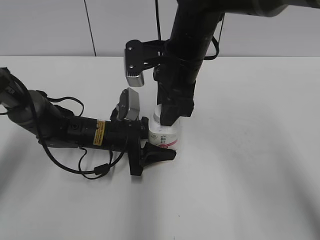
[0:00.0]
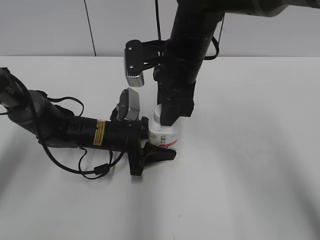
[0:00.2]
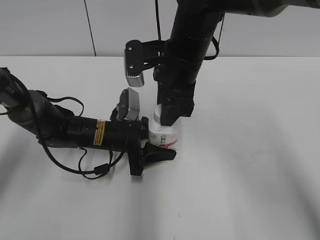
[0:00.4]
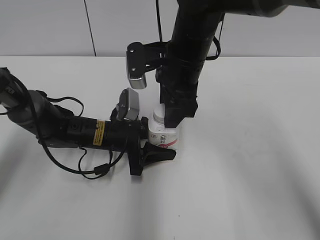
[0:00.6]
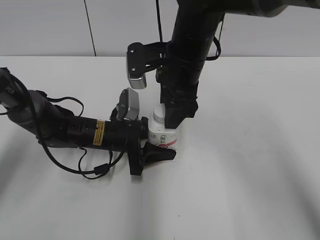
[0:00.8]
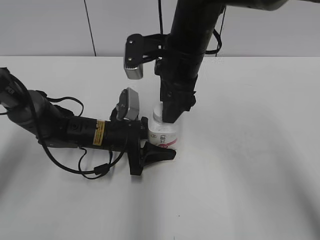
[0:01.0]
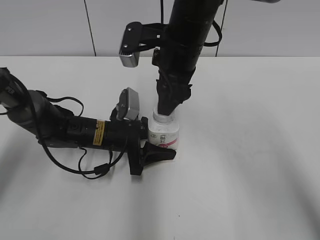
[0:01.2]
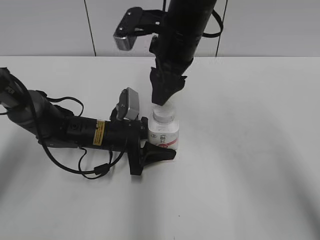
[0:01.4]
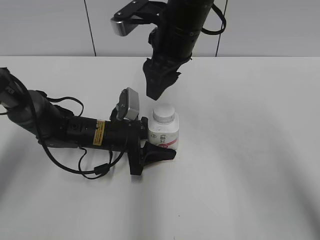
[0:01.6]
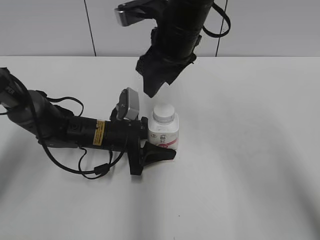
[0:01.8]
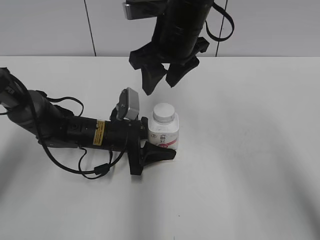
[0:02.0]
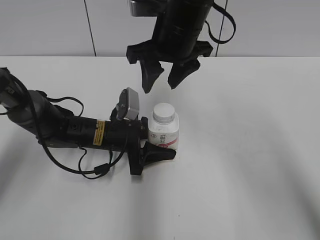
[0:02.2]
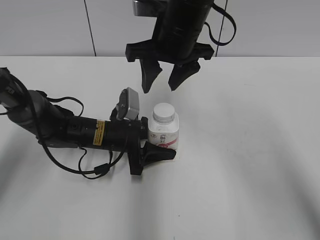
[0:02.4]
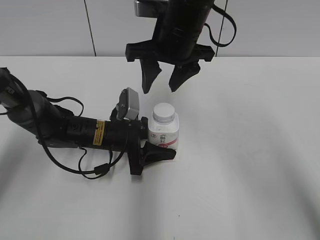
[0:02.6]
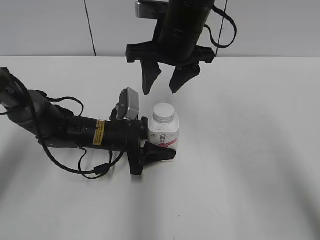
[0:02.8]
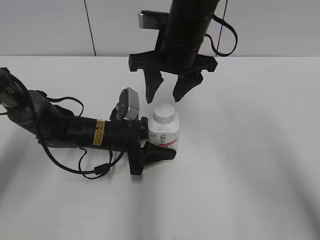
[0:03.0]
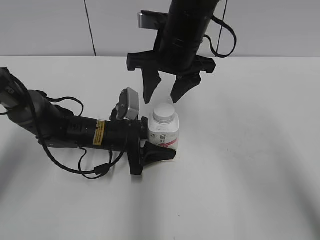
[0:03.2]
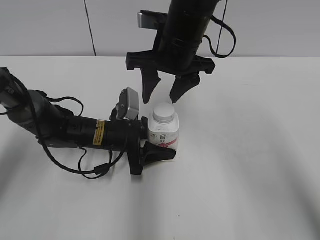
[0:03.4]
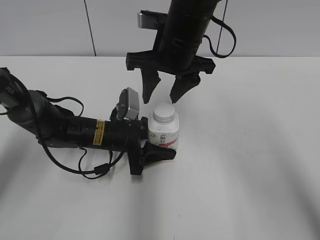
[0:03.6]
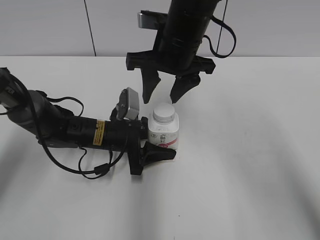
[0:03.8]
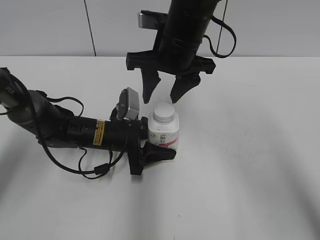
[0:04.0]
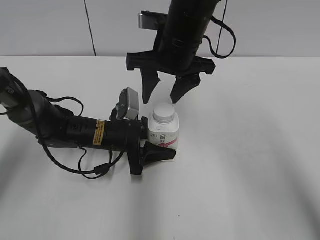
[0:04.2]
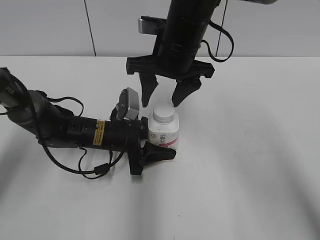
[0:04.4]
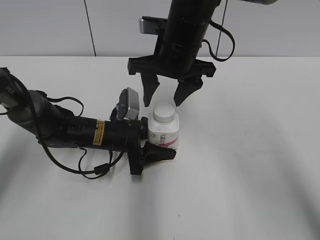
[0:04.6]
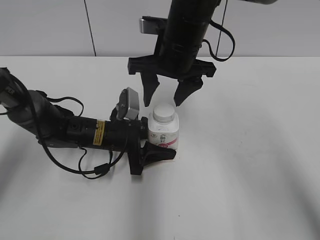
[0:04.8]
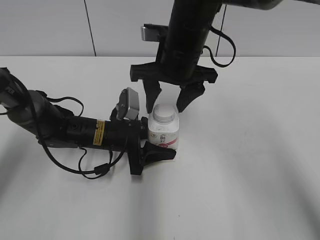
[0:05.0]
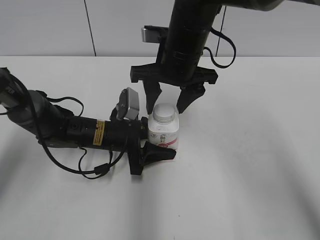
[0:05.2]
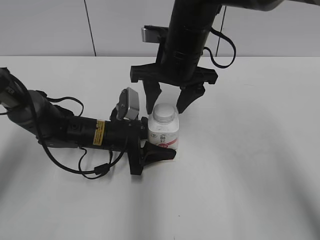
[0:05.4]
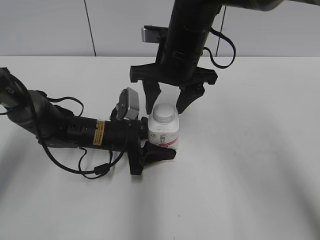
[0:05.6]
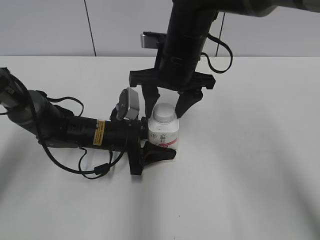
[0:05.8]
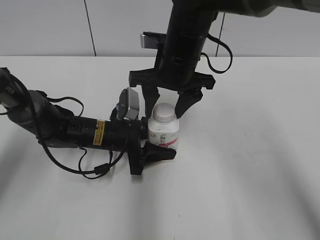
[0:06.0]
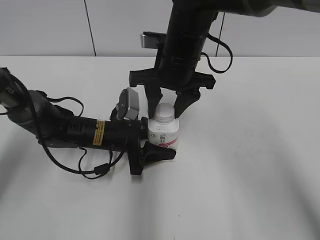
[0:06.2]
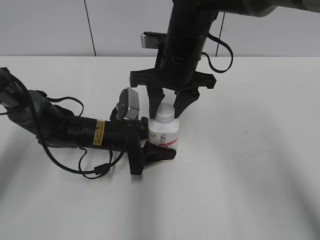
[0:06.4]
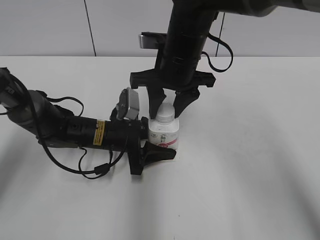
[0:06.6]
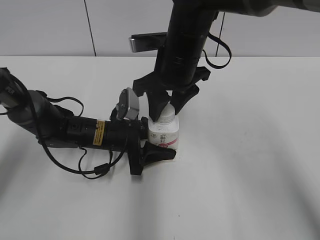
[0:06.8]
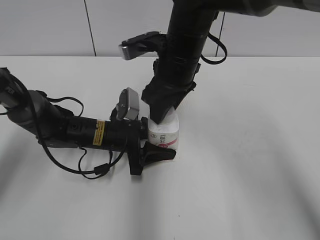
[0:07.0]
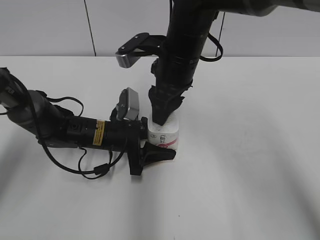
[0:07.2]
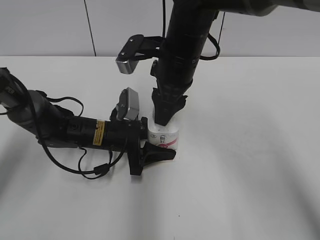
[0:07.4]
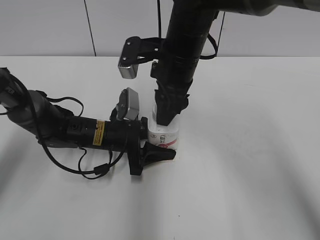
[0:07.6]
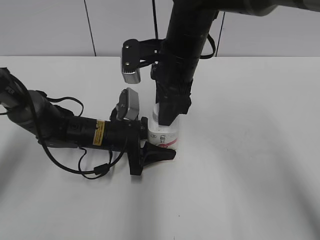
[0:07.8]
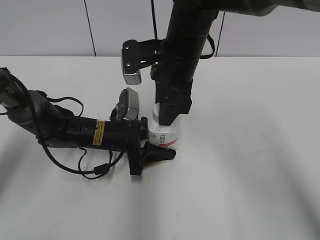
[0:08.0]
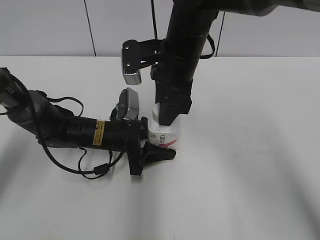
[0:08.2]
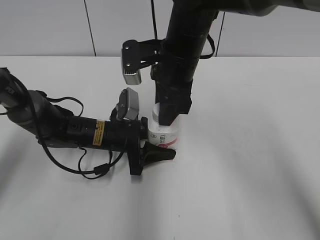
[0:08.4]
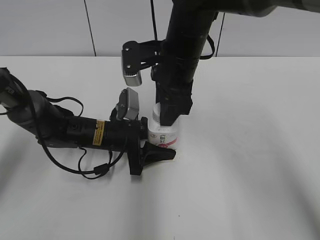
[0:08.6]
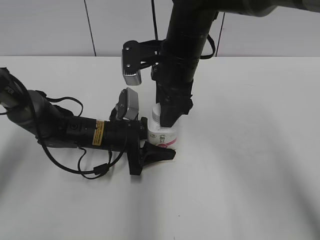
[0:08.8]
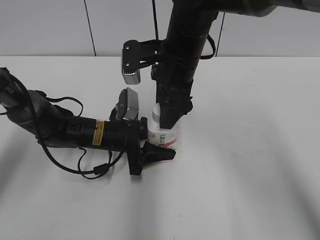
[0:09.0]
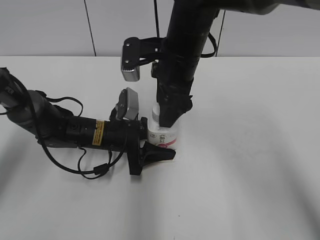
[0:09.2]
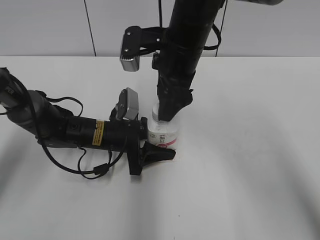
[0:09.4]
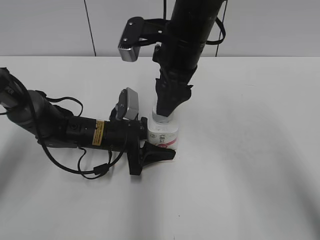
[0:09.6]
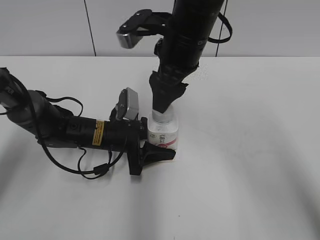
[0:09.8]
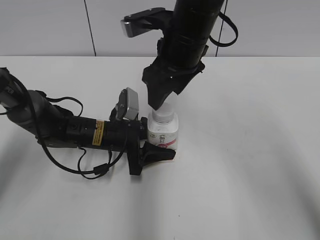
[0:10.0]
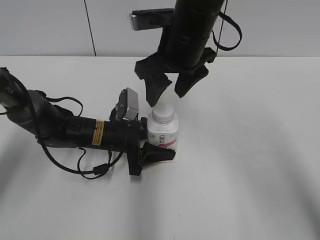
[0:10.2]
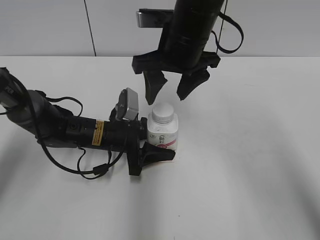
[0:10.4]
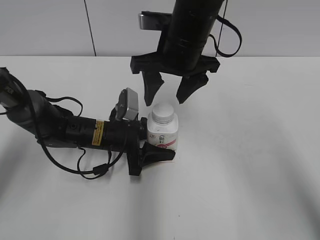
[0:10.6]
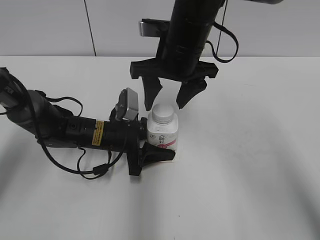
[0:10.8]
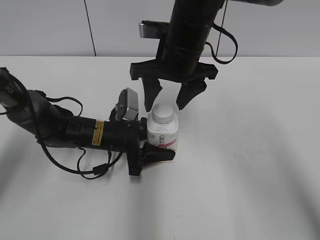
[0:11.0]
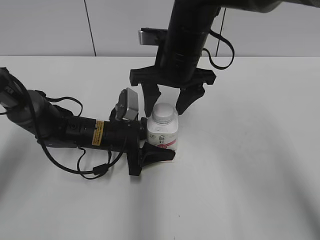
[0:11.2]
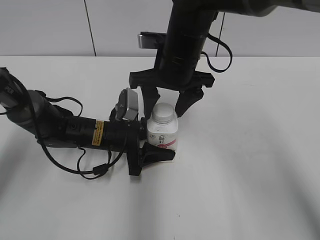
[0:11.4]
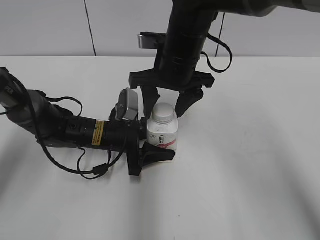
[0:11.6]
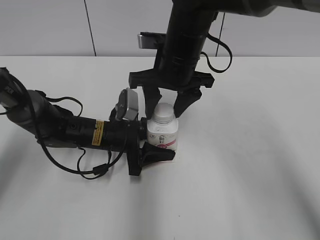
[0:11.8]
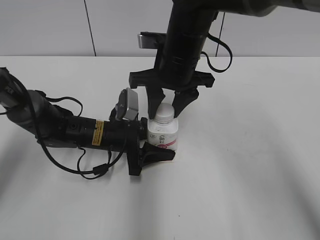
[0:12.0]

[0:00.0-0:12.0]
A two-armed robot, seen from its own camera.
0:00.0 to 0:01.6: The right gripper opens.
0:03.0 to 0:04.4: Neither gripper changes place.
0:04.4 to 0:06.0: The grippers stay close to where they were, moving slightly.
0:06.0 to 0:07.6: The right gripper closes.
0:07.6 to 0:09.0: The right gripper opens its fingers.
0:10.4 to 0:12.0: The right gripper closes up.

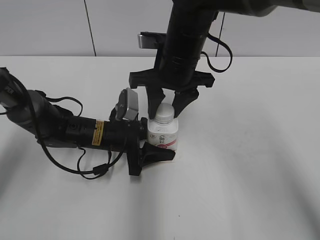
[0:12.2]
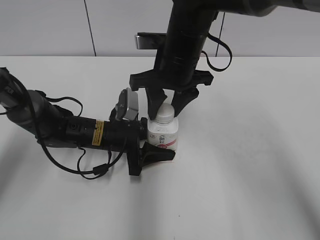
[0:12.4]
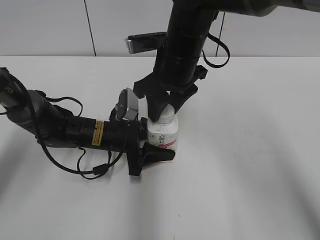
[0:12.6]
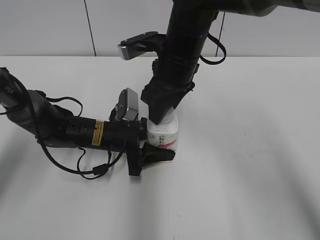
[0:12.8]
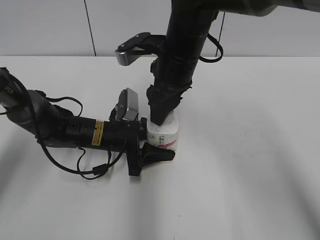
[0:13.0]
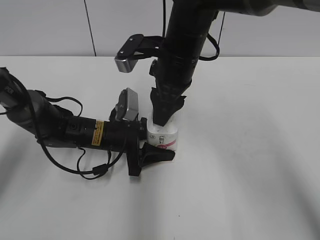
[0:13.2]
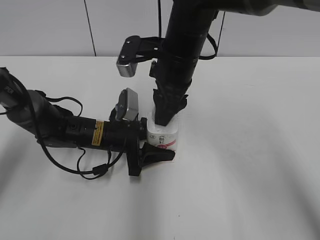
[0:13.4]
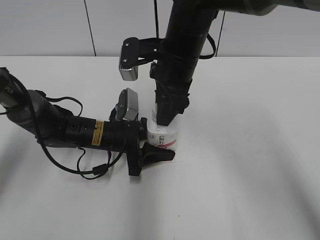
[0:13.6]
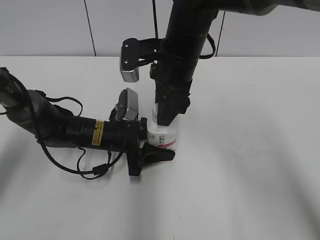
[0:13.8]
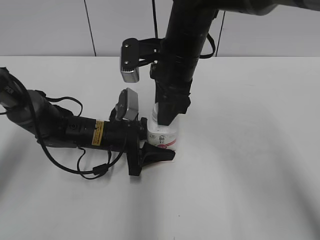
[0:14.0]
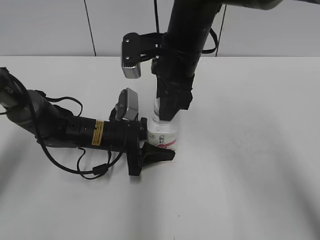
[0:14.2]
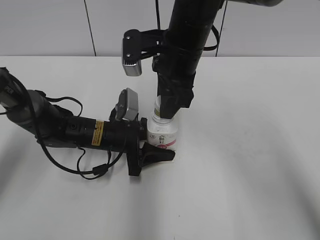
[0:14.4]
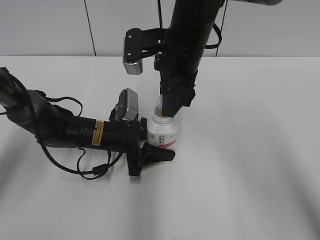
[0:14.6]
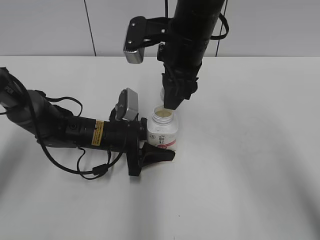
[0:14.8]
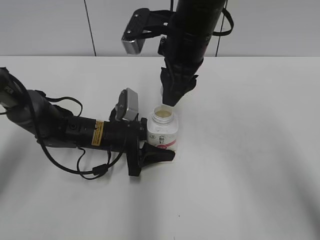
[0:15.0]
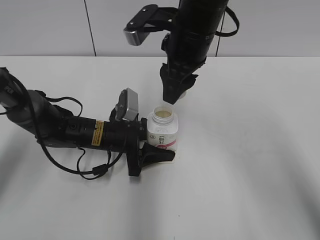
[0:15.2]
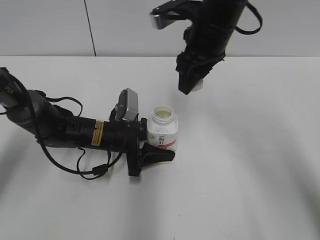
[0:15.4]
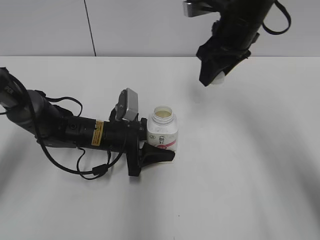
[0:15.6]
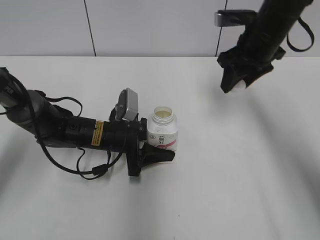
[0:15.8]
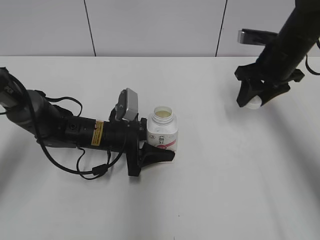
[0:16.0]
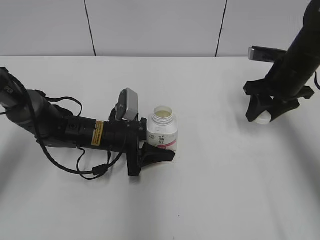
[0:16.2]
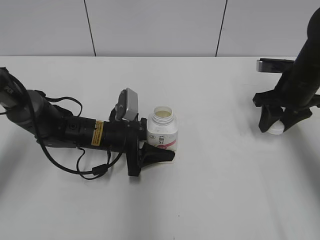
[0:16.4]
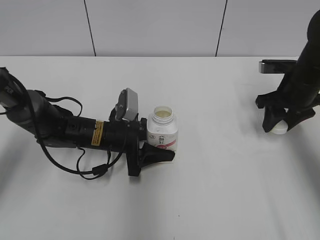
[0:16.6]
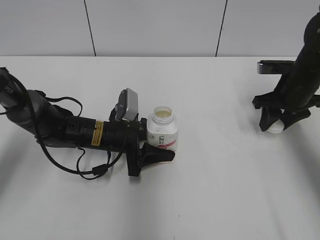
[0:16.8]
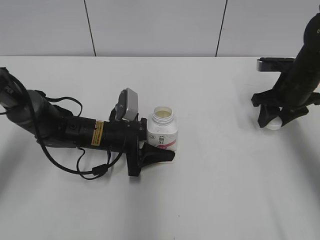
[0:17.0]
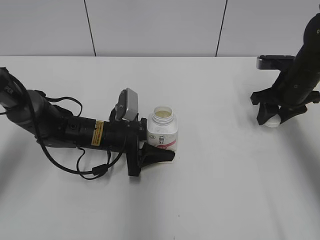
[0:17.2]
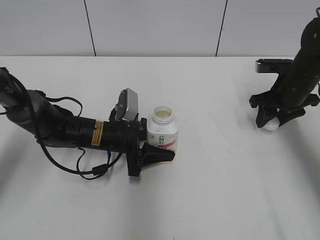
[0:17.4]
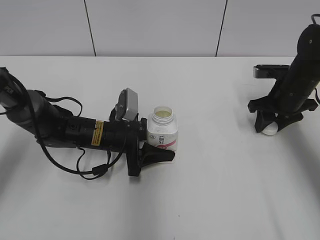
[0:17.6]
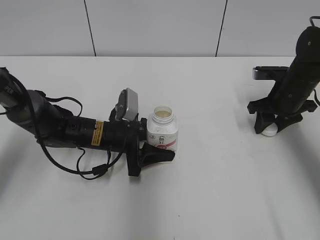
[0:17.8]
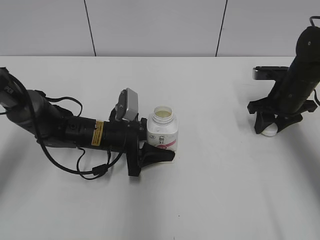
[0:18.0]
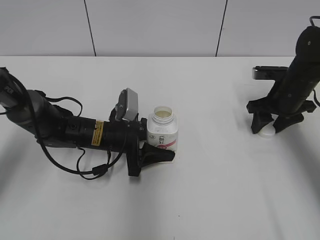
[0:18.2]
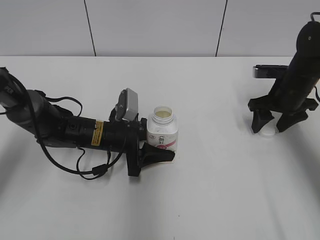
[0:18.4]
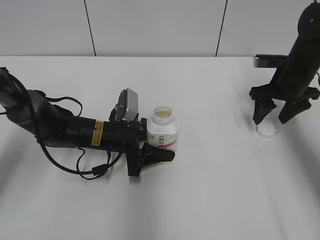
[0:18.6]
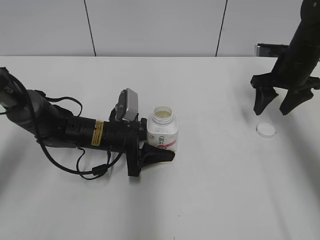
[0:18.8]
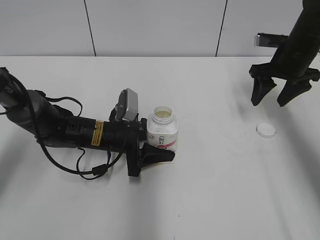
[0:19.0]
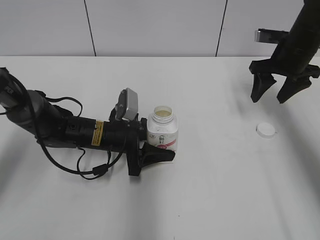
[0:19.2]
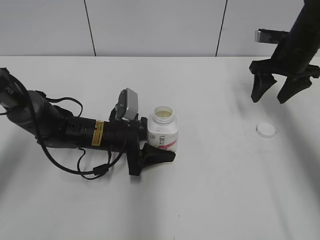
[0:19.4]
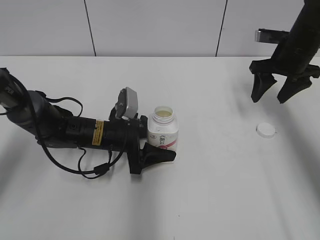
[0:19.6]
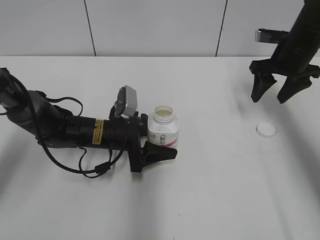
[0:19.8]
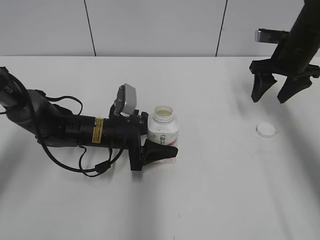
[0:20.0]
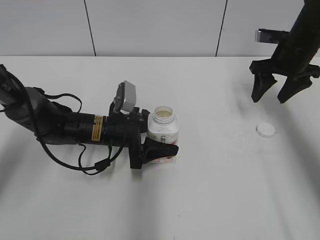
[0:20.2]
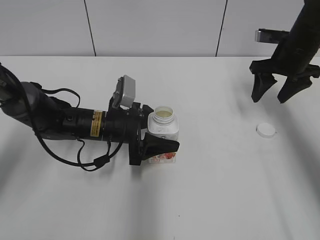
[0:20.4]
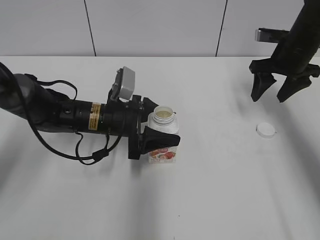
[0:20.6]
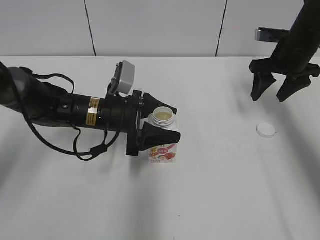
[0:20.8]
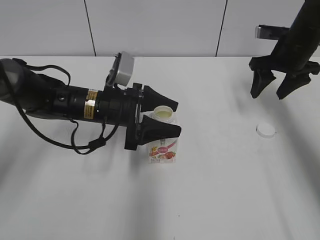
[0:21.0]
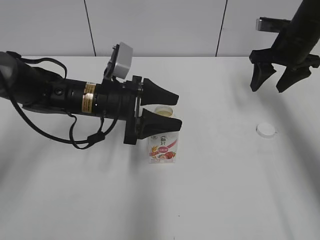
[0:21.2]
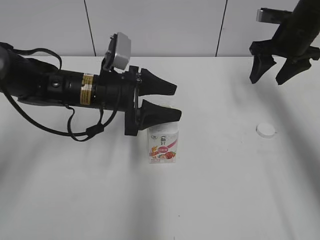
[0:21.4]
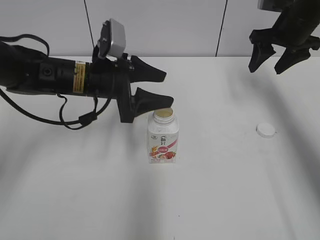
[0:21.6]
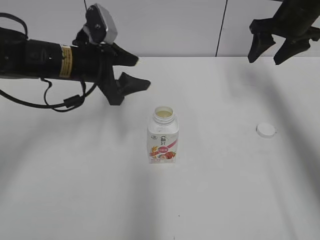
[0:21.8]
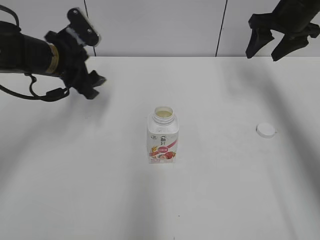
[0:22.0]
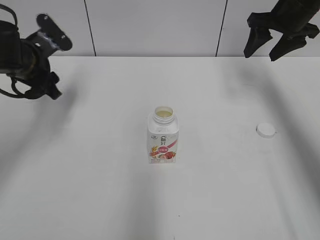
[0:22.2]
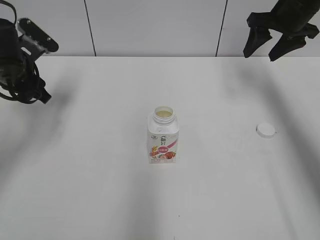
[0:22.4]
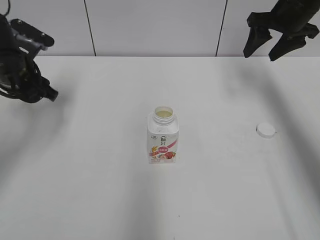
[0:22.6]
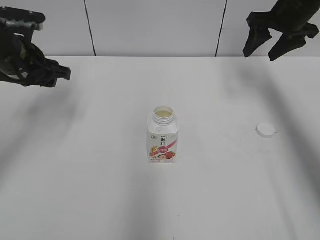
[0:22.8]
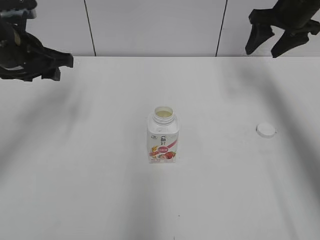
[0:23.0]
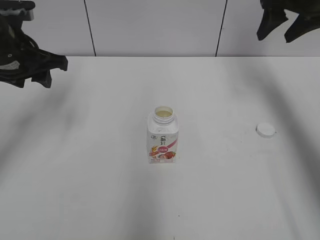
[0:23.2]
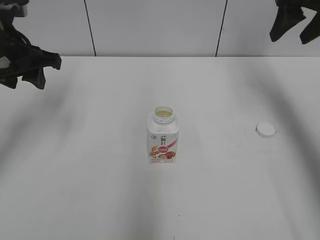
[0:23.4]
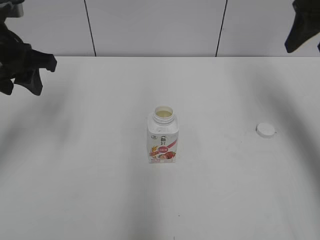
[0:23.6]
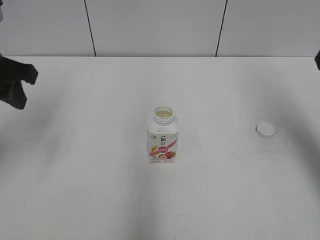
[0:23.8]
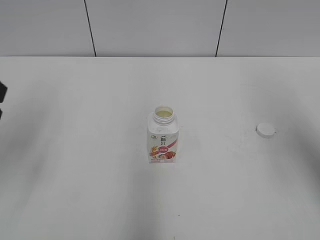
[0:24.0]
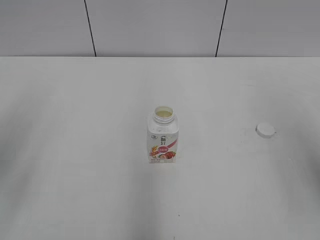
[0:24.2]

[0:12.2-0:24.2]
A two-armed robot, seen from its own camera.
Step, 0:15.2 to 0:18.2: Place the bottle cap on the right.
0:15.2 to 0:16.6: The right gripper goes approximately 25 cm to the right and downward.
0:16.6 to 0:18.2: The right gripper opens up.
0:18.2 to 0:19.8: The right gripper travels upward by roughly 10 cm, and opens up.
0:19.8 to 0:21.2: The left gripper goes some 10 cm upward.
0:21.2 to 0:22.6: The left gripper is displaced to the left by roughly 15 cm. Meanwhile the right gripper heads upward, covering about 5 cm.
0:22.6 to 0:24.2: The left gripper goes approximately 25 cm backward and upward; the right gripper travels backward by about 30 cm.
